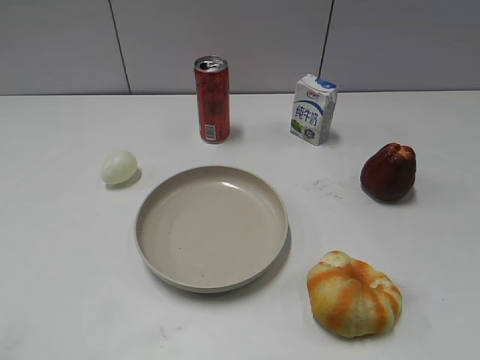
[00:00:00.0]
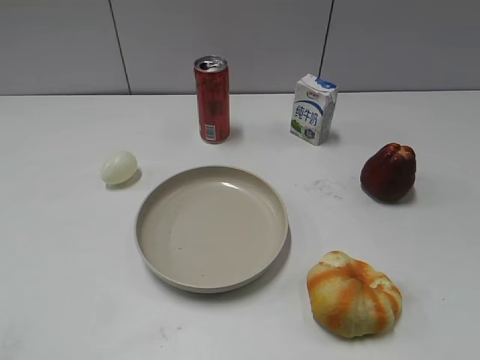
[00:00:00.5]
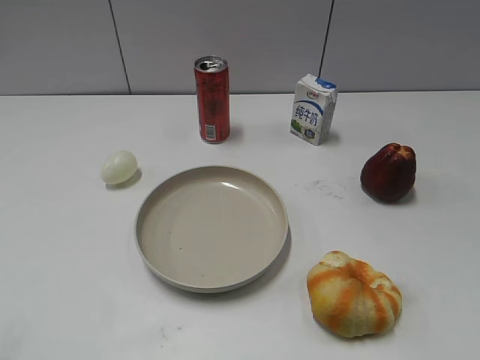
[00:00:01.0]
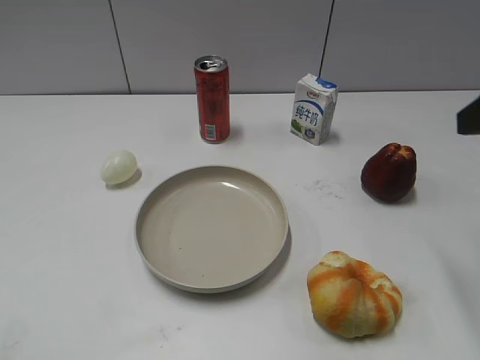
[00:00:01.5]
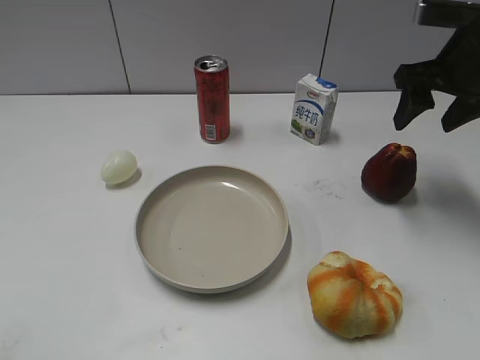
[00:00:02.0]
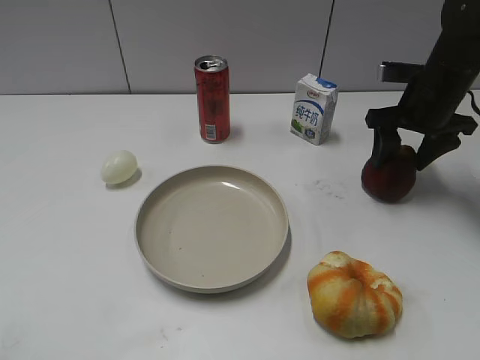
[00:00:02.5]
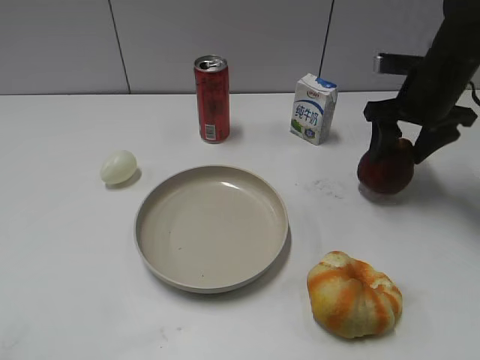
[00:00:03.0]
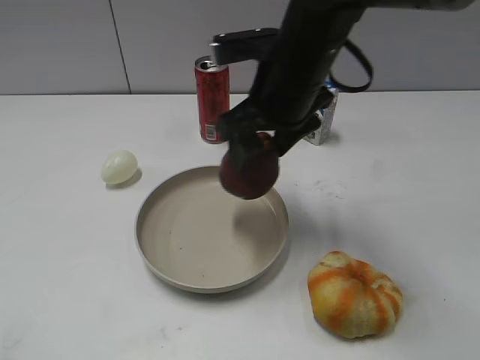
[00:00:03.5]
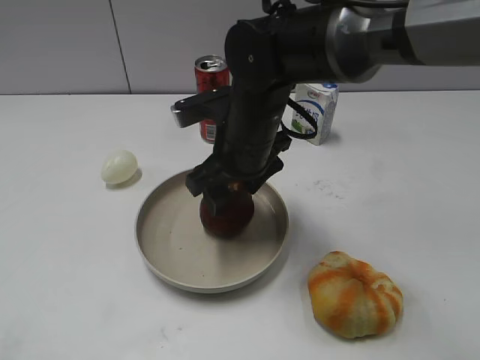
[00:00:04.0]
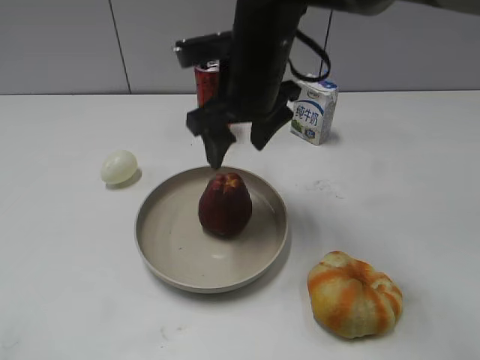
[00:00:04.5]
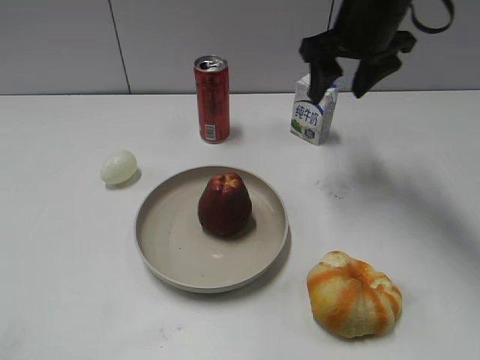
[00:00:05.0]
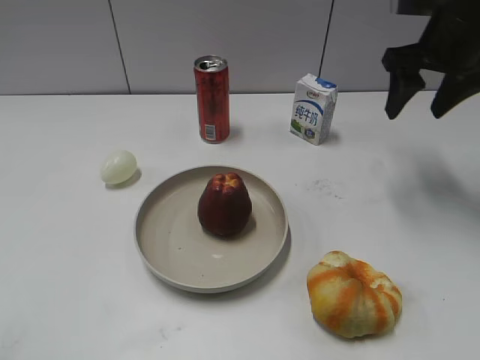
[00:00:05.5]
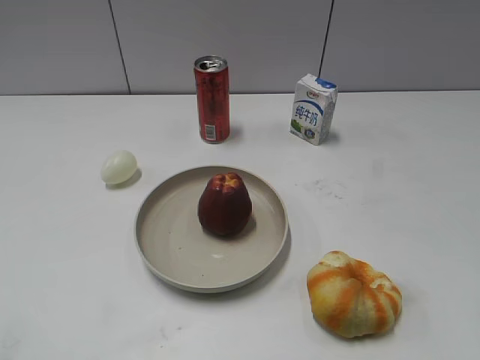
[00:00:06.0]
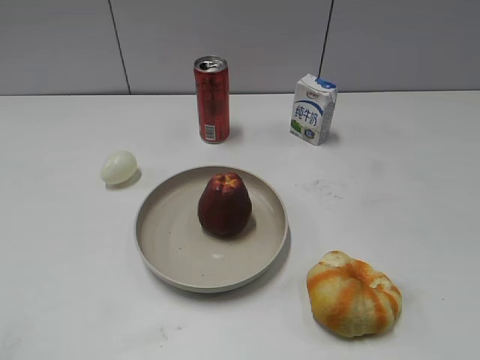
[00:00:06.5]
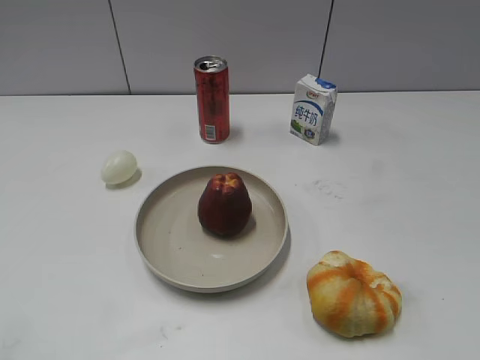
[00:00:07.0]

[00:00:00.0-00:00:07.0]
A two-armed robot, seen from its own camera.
Step, 00:00:01.0 to 00:00:02.5: Grasp the apple with right gripper.
Step, 00:00:03.0 to 00:00:04.5: Place the apple on the plate with right gripper.
00:00:02.0 to 00:00:03.5: The right gripper goes some 20 cm to the left.
00:00:03.5 to 00:00:05.0: The right gripper is displaced to the right and forward by roughly 15 cm.
00:00:05.0 to 00:00:07.0: The right gripper heads backward, covering approximately 40 cm.
